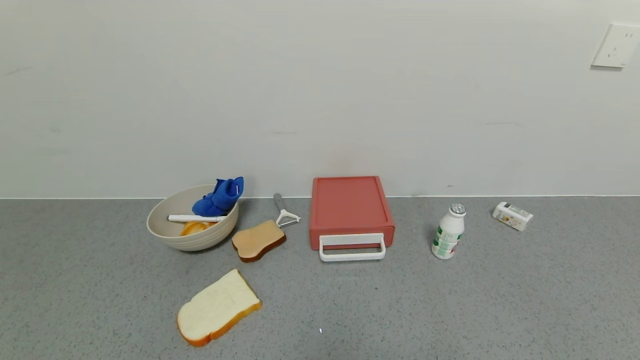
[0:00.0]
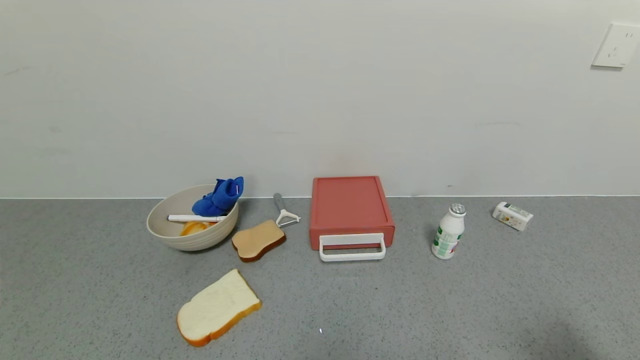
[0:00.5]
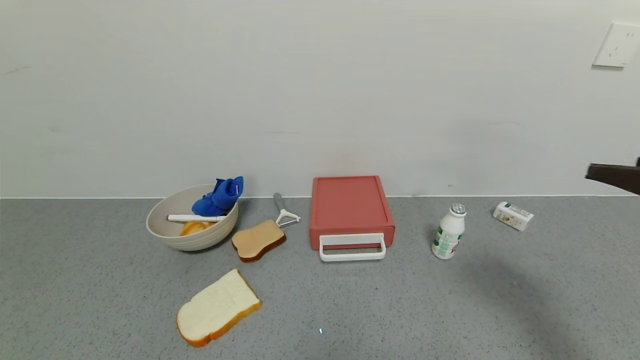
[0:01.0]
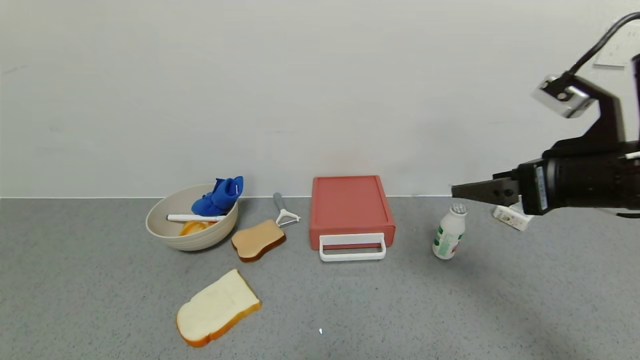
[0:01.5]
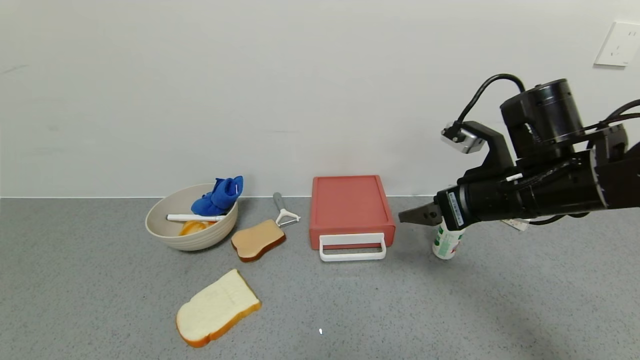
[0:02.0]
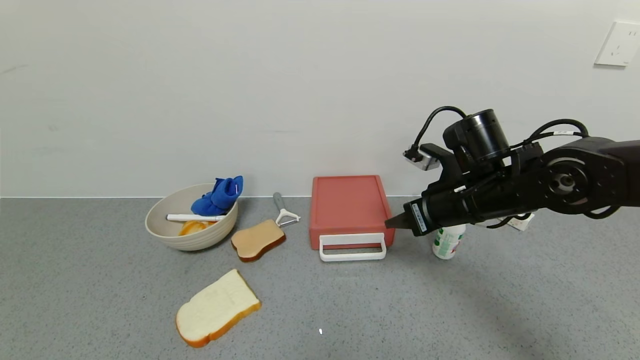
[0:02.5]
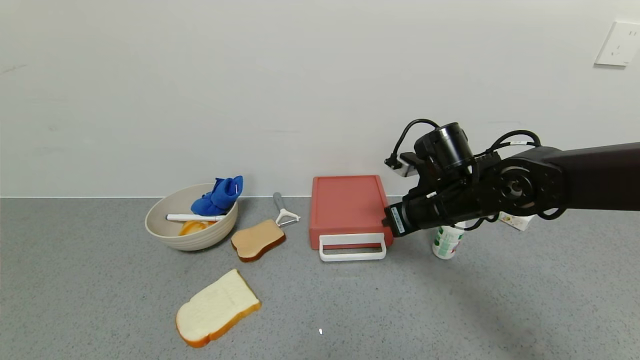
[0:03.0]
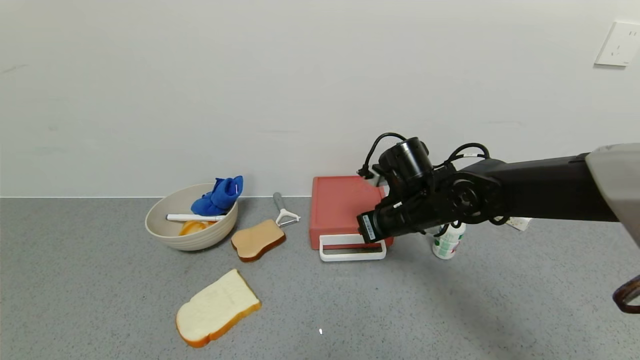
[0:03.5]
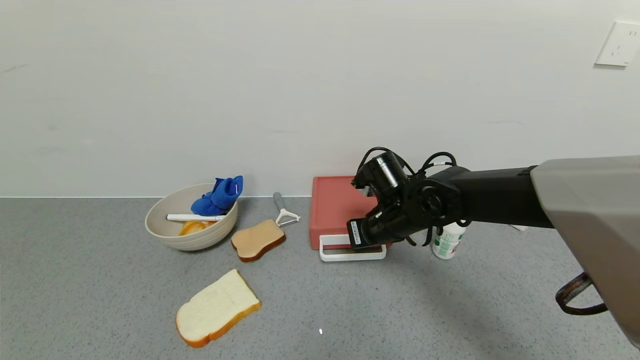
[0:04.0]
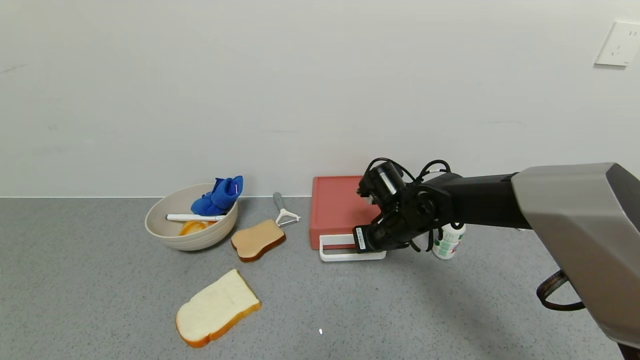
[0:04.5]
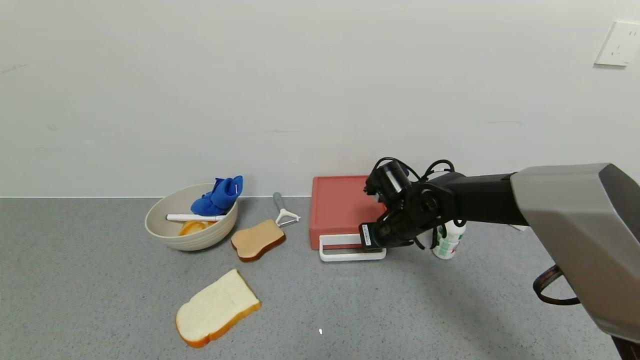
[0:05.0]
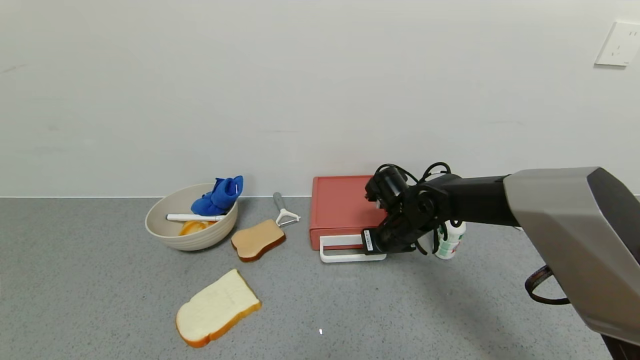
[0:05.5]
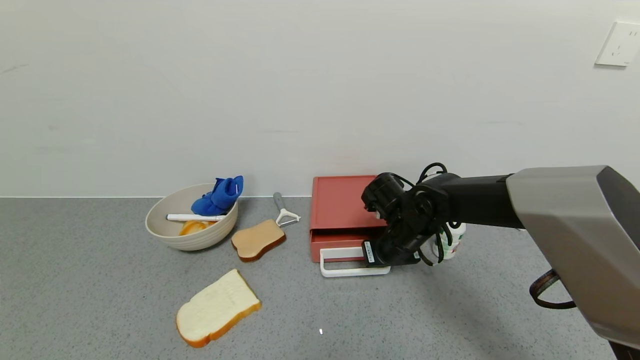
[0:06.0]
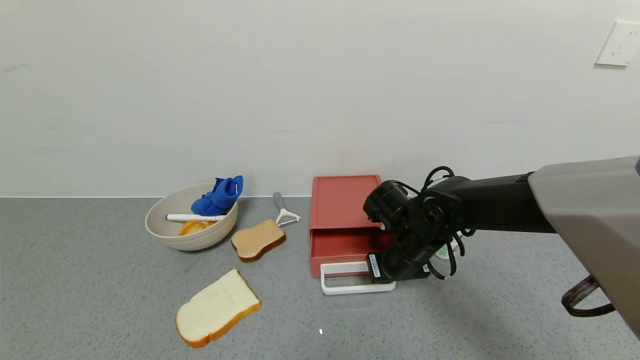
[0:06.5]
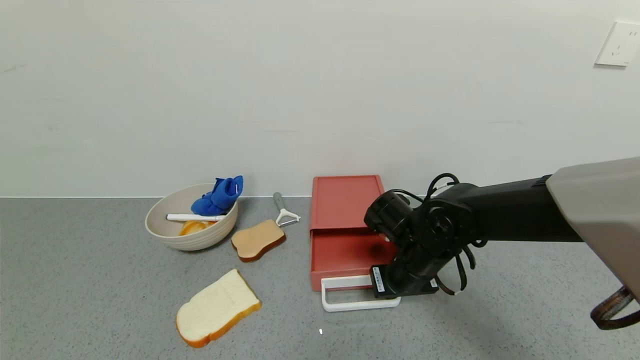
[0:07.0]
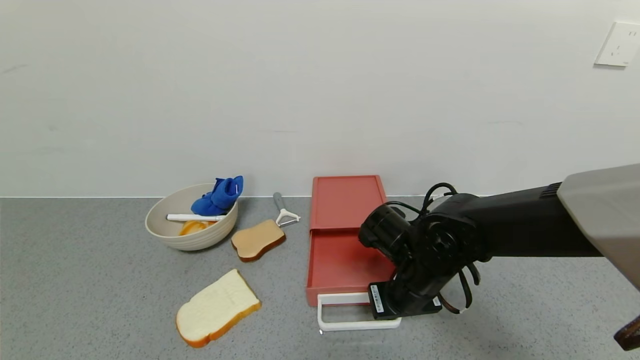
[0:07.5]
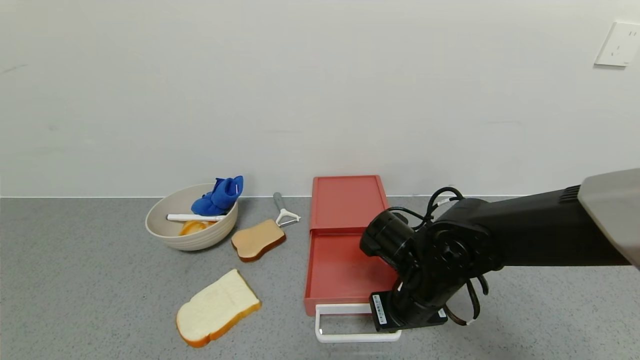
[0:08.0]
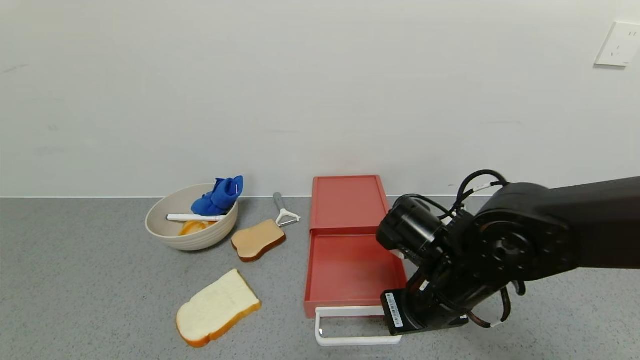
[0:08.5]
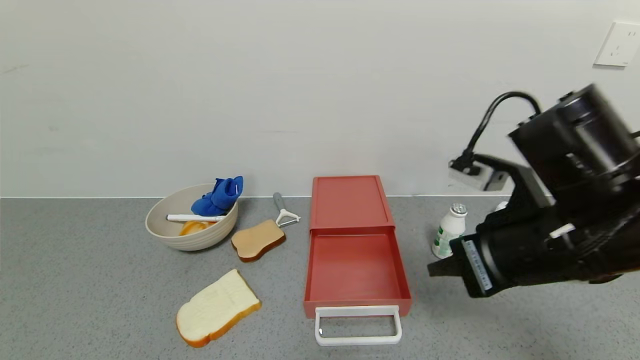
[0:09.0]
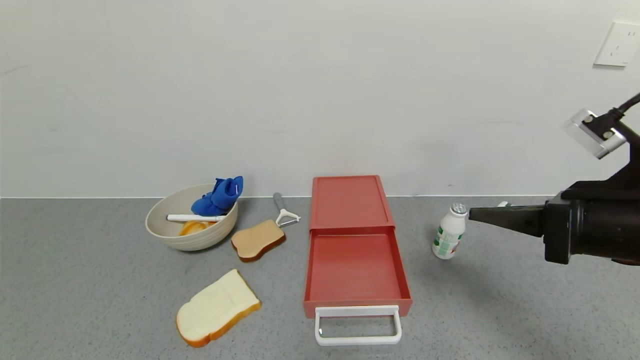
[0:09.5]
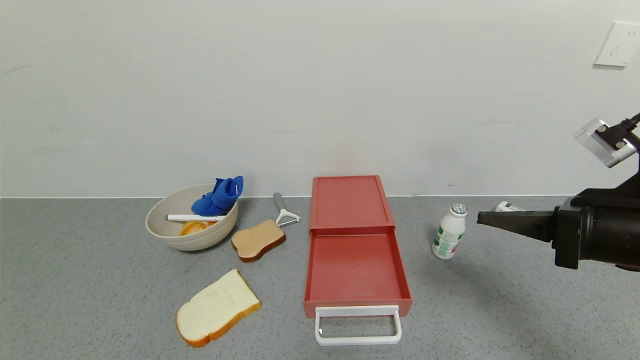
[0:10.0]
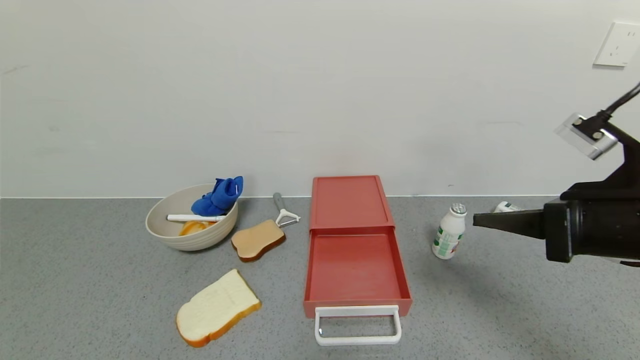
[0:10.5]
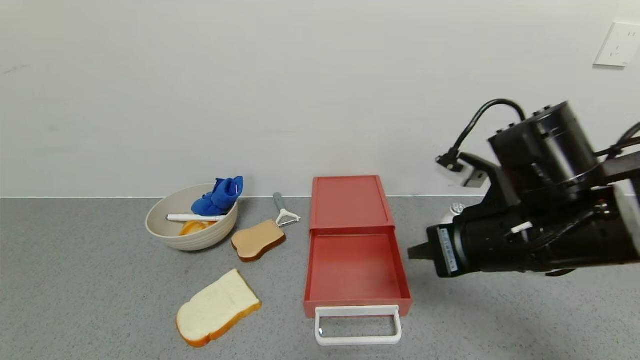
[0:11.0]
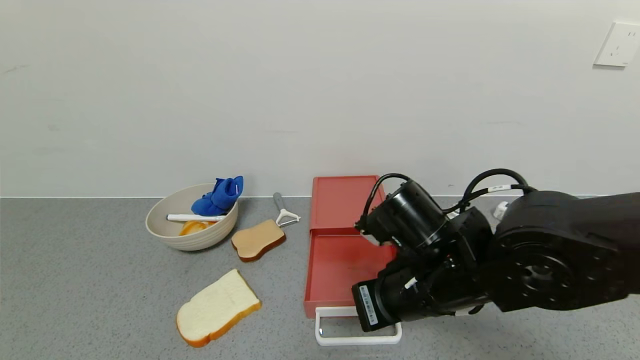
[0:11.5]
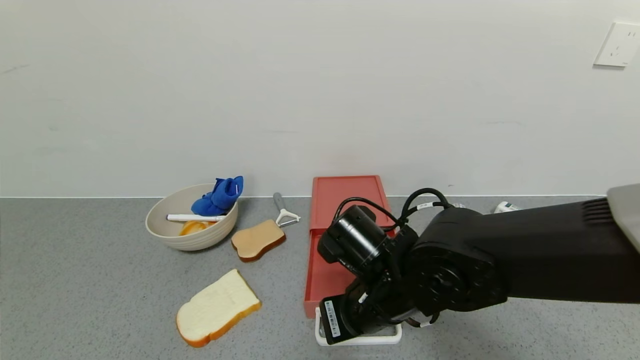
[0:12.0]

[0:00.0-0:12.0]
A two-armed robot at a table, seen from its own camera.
Task of the whole recording: use the gripper to open the drawer and close the red drawer.
Step, 0:00.0 to 0:08.5: Open the red drawer with right gripper.
0:00.0 to 0:02.0: The right gripper travels forward, to the left and upward by about 40 cm.
0:02.0 to 0:04.0: The right gripper moves to the left, downward and forward, approximately 20 cm, and closes up.
0:04.0 to 0:06.0: The grippers stay close to where they were, moving slightly.
0:06.0 to 0:08.0: The right gripper shifts roughly 10 cm backward.
0:08.0 to 0:10.0: The right gripper is displaced to the right and upward by approximately 20 cm.
0:10.0 to 0:12.0: The right gripper goes some 25 cm to the left and downward.

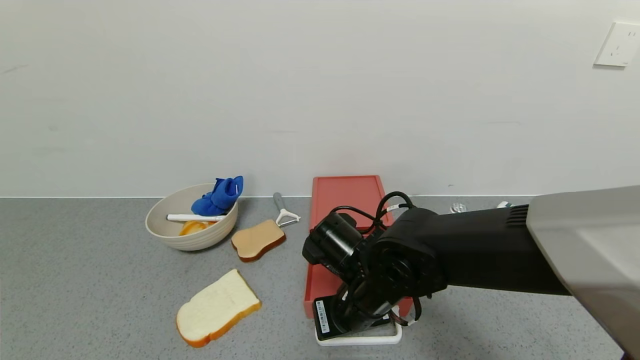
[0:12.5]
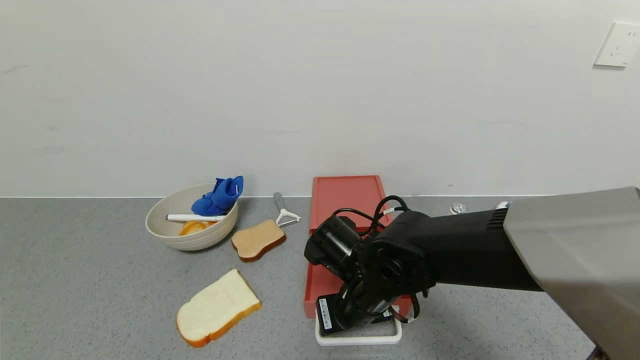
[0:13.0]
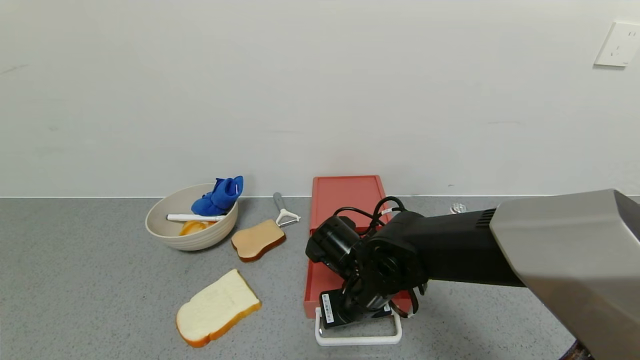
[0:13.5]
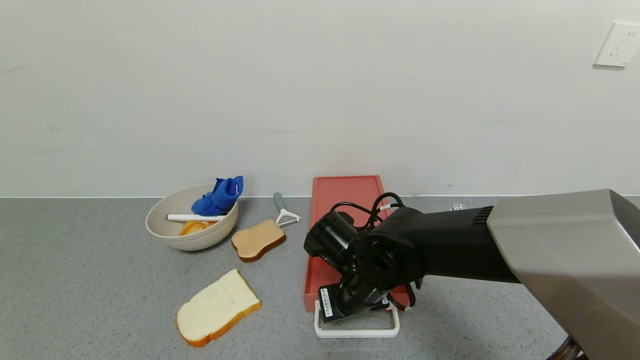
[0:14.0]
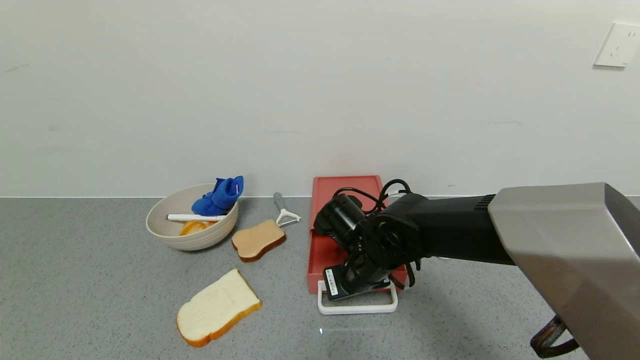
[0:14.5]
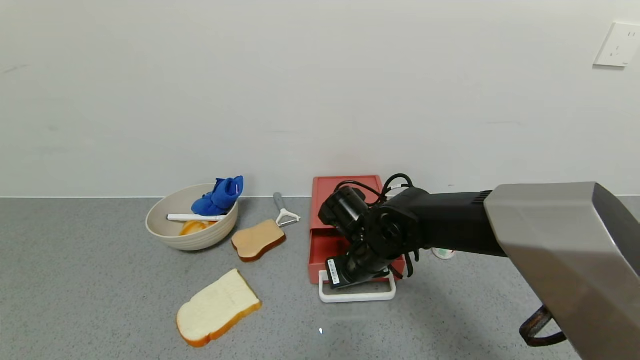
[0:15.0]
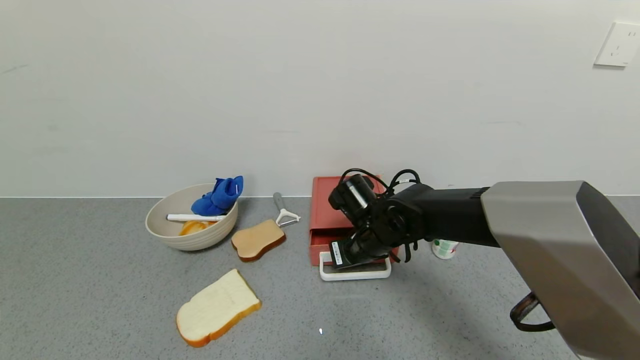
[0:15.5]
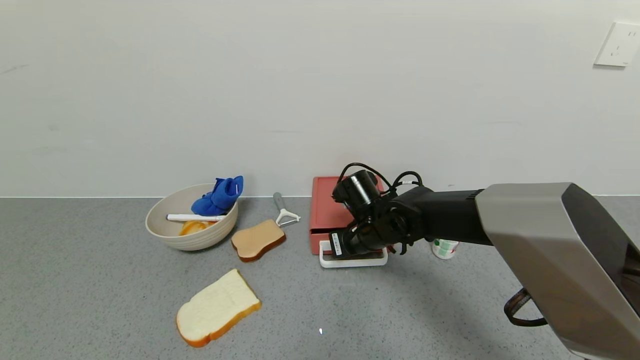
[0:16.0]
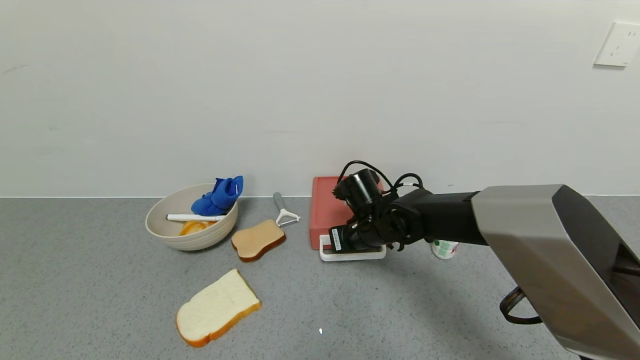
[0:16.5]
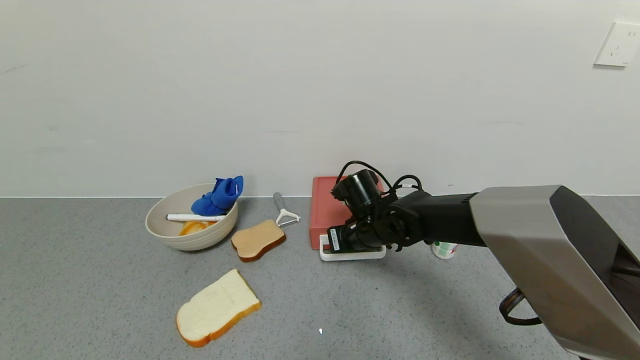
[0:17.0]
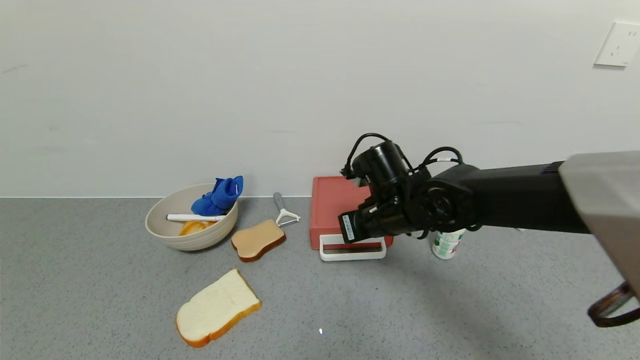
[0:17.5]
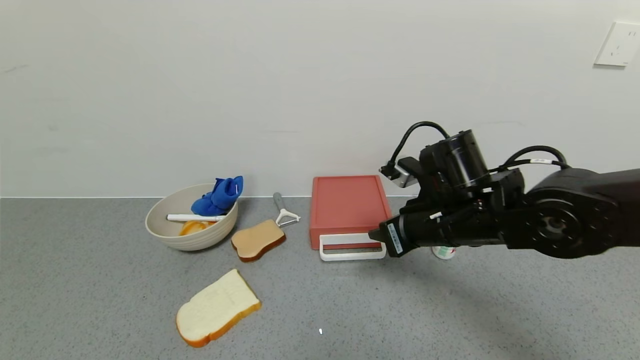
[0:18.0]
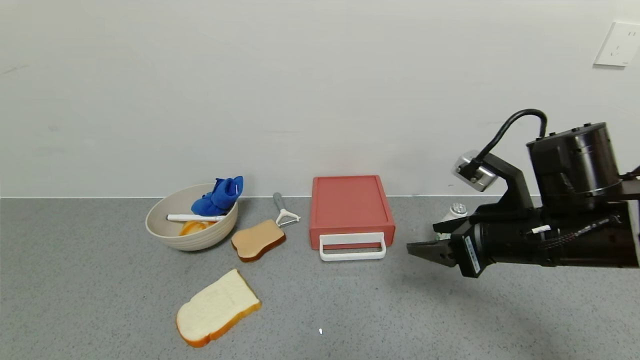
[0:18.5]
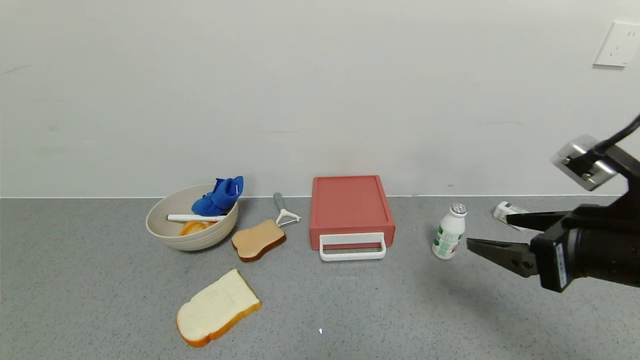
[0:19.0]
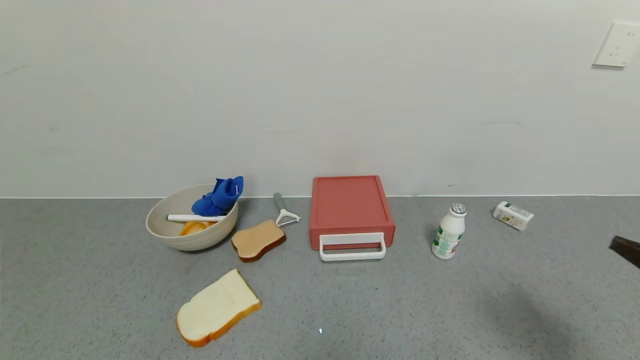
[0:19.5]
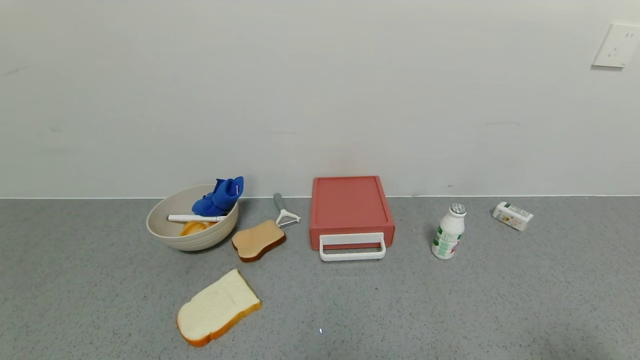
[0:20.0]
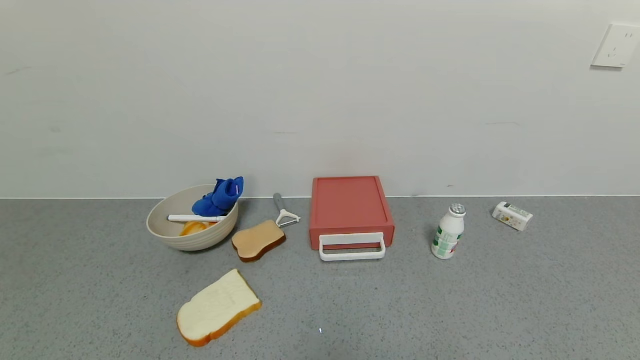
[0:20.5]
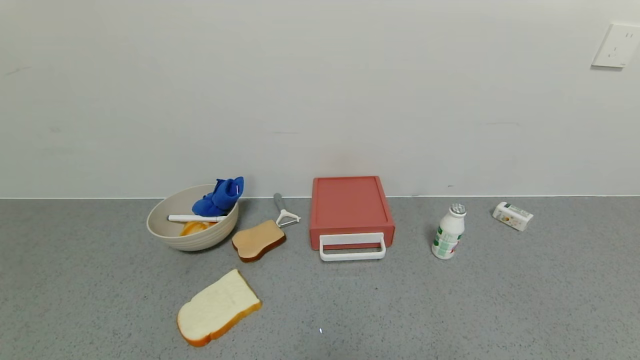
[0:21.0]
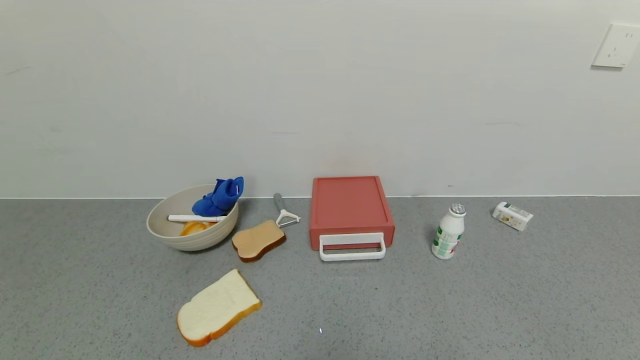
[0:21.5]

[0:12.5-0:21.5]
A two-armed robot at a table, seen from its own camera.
Task of the whole recording: use the gripper to open the drawer and close the red drawer.
Step, 0:12.5 to 0:17.5: Close the red drawer with right gripper.
0:12.5 to 0:14.5: The right gripper heads forward, covering about 5 cm.
0:14.5 to 0:17.0: The right gripper travels forward by some 10 cm.
0:17.0 to 0:19.5: The right gripper travels backward, to the right and upward by some 40 cm, and opens.
0:19.5 to 0:21.5: The right gripper moves downward and backward, roughly 20 cm.
